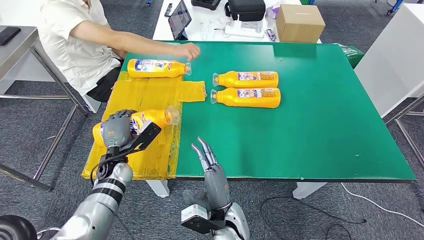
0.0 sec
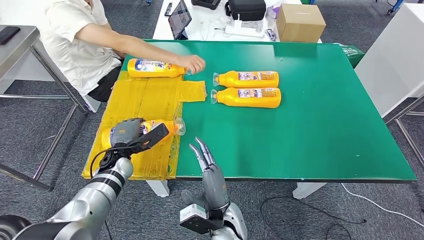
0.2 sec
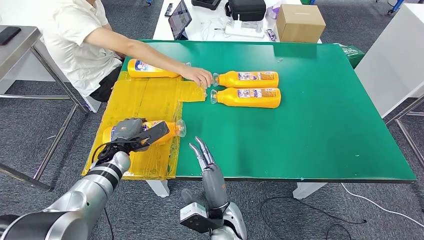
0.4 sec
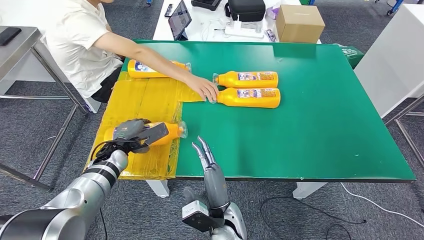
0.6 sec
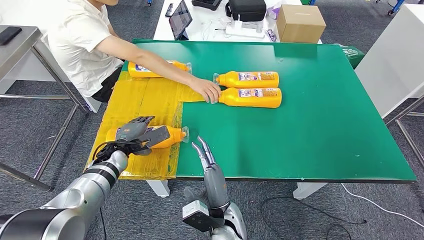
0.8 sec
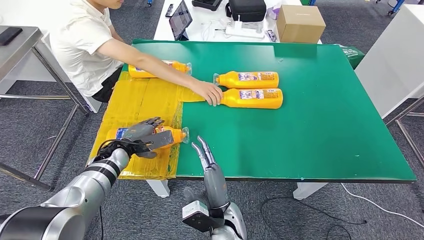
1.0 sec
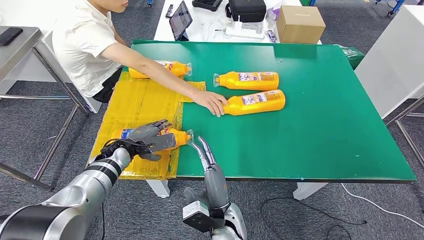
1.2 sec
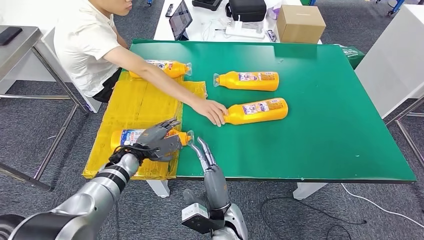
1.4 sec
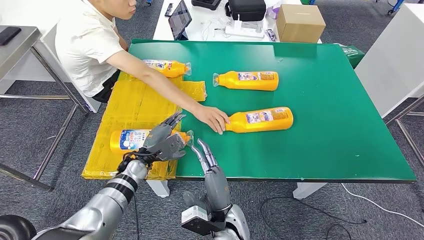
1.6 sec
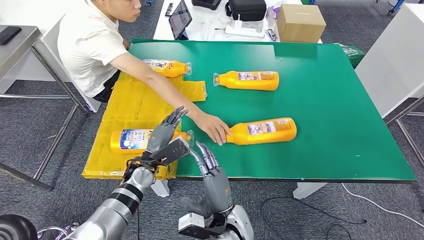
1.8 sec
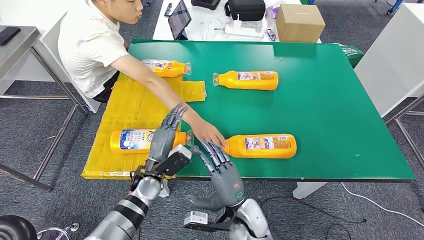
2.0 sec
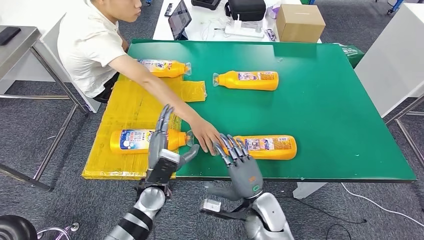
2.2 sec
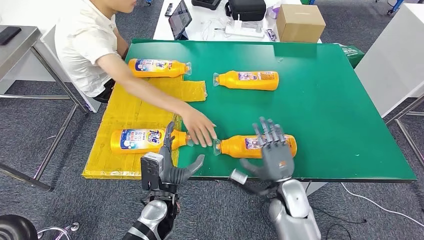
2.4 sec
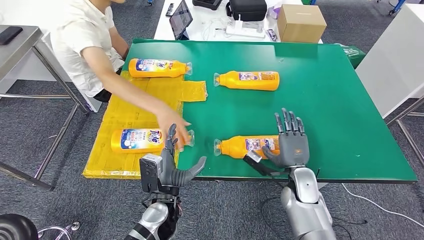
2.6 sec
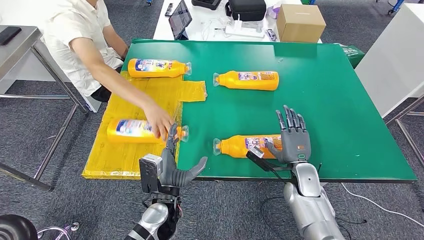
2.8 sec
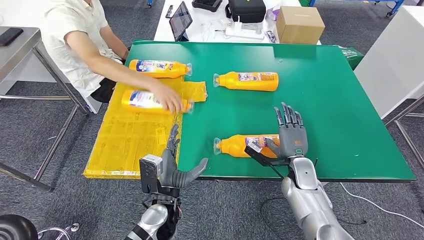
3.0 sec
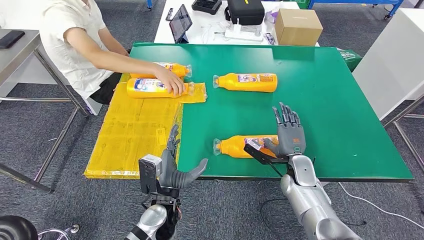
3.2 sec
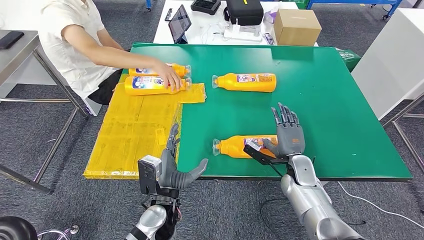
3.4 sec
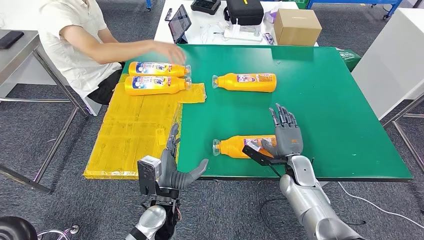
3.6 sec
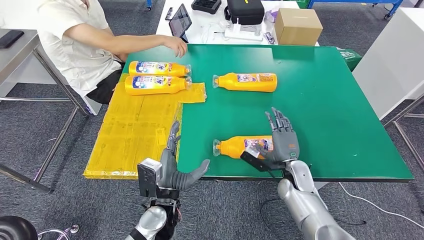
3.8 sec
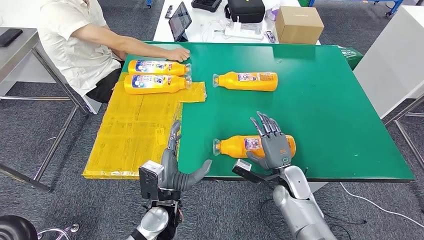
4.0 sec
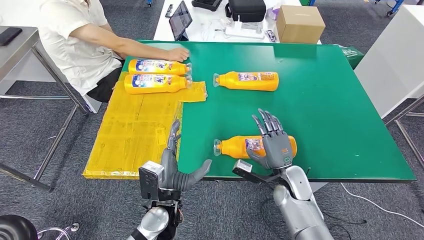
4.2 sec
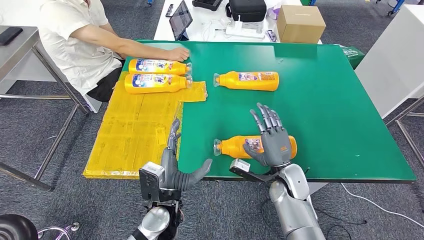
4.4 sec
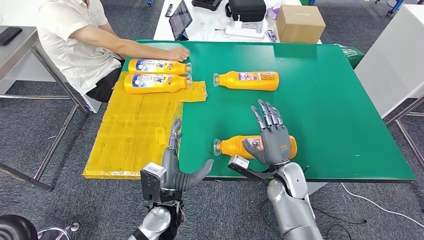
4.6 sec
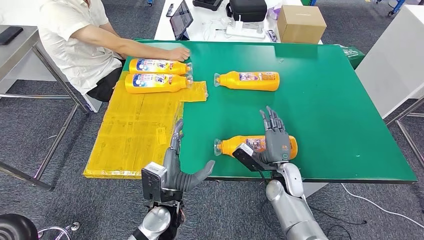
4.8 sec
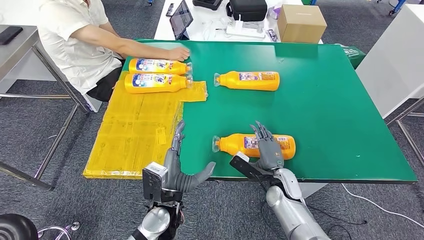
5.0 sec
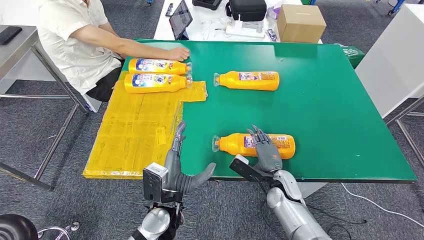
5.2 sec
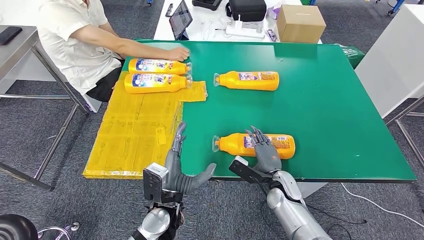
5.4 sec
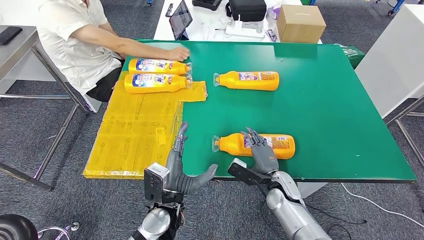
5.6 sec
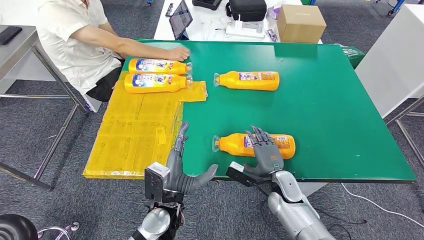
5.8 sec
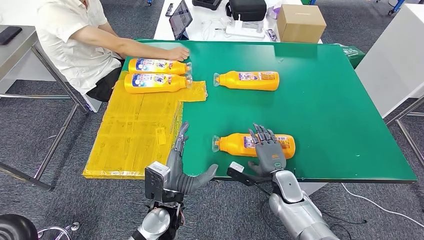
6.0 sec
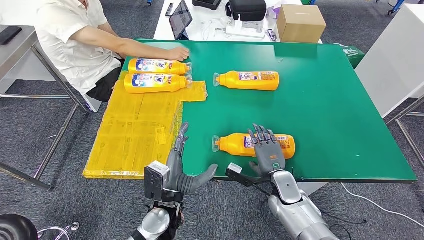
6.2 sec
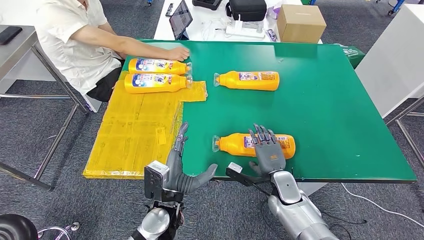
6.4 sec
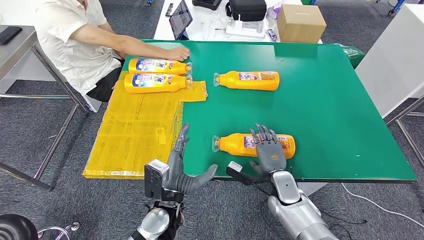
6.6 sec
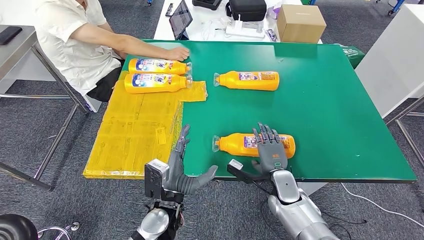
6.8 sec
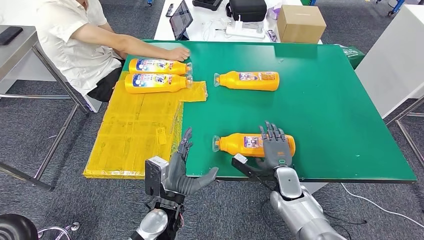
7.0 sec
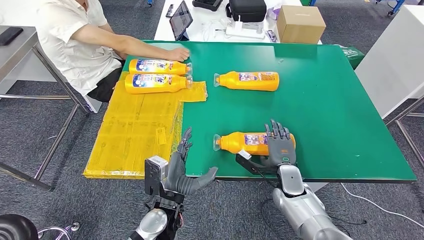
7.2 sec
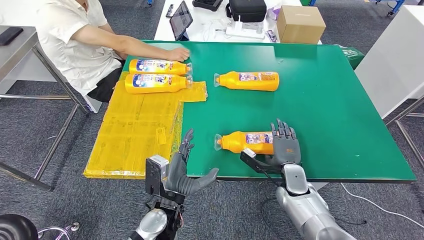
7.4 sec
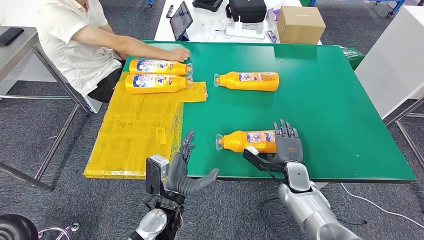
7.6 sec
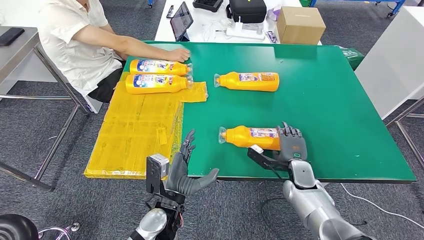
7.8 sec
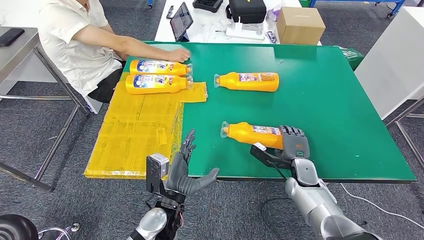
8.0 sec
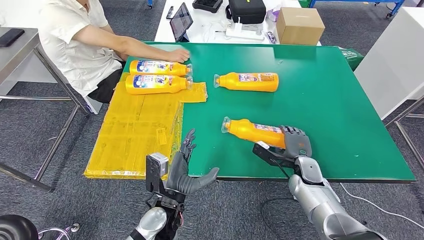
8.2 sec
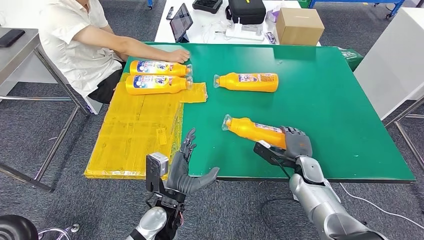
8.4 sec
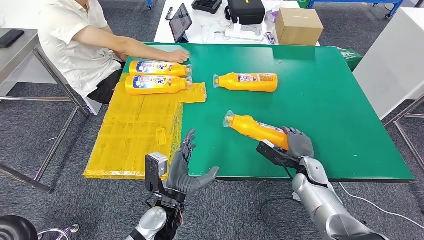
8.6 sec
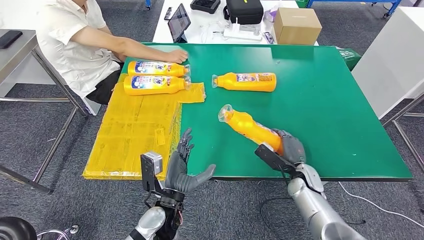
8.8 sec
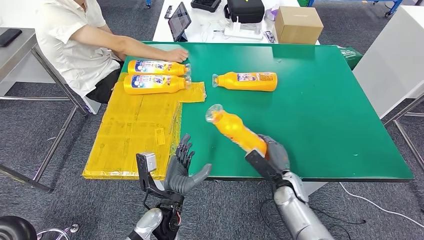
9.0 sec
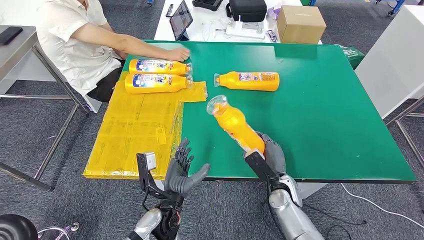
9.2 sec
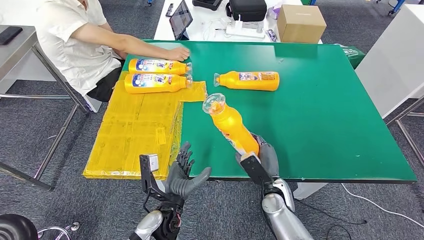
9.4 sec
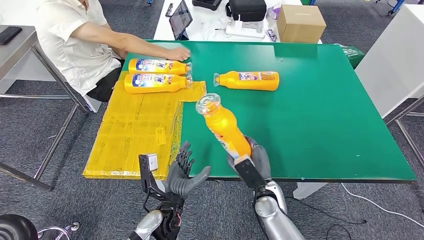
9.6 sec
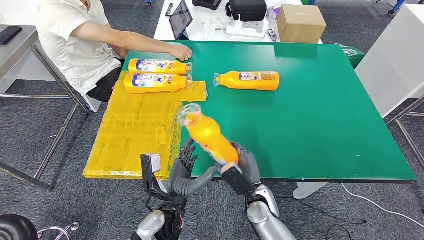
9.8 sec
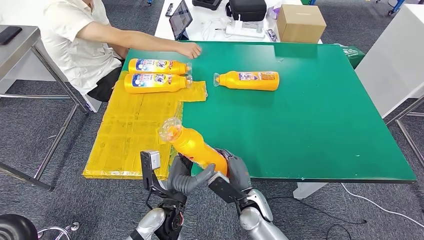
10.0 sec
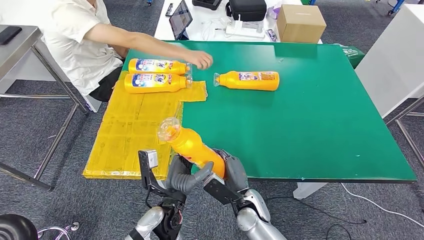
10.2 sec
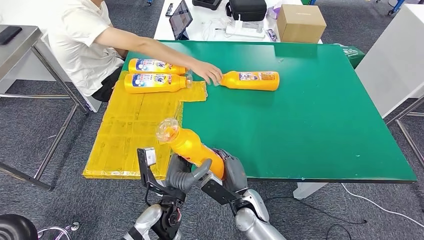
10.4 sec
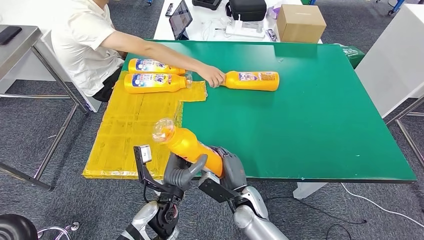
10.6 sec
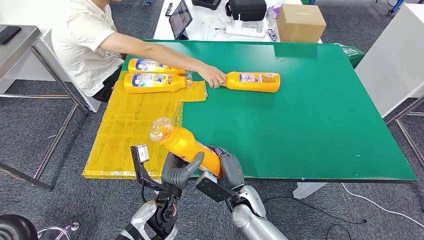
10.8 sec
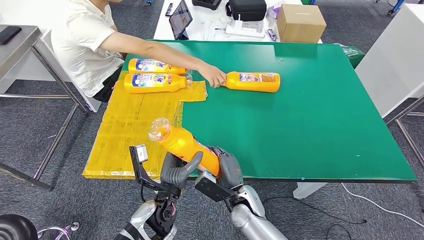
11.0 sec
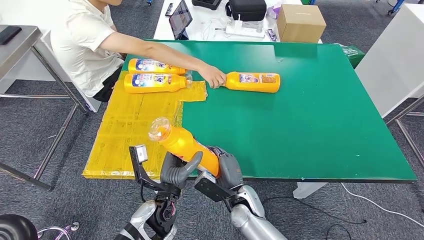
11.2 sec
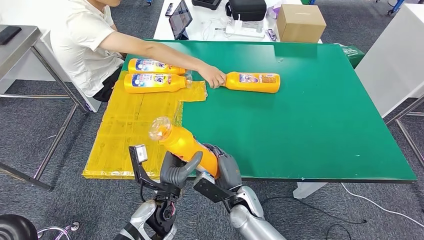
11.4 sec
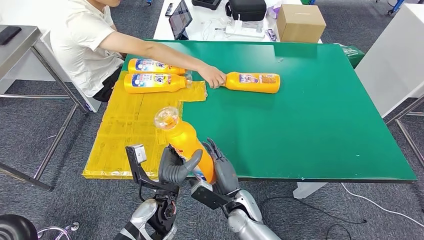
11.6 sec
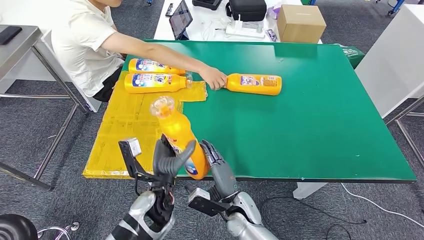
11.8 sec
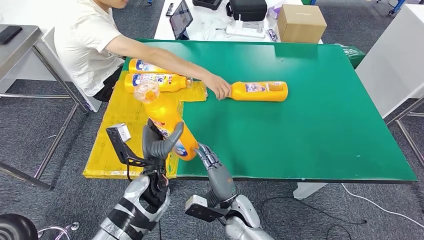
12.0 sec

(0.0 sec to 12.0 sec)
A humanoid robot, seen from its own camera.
Step, 0.0 sec - 4.4 sec: Flip the bottle to face forward.
Step, 4.6 sec - 8.6 sec: Pick up the bottle from the table.
0.0 sec - 1.6 sec: The left hand moves to the right, roughly 5 cm.
3.0 sec - 4.4 sec: The right hand moves some 5 cm.
4.4 sec - 6.0 sec: The right hand changes place by about 5 cm.
10.4 sec - 12.0 sec: The left hand heads forward, covering roughly 5 cm.

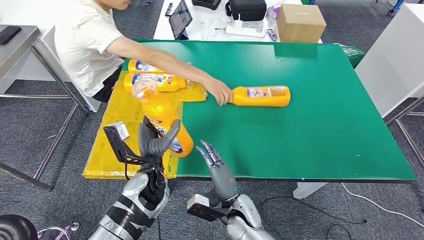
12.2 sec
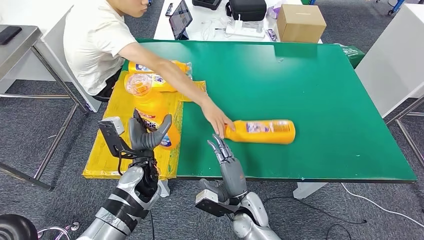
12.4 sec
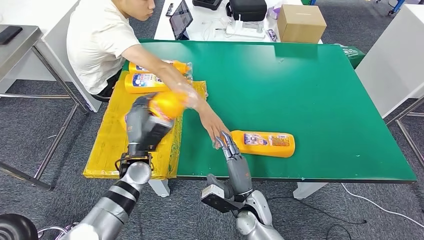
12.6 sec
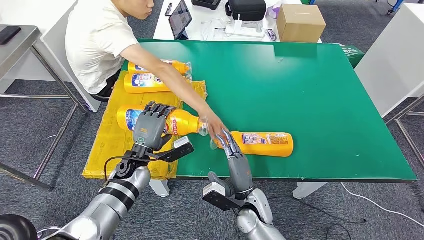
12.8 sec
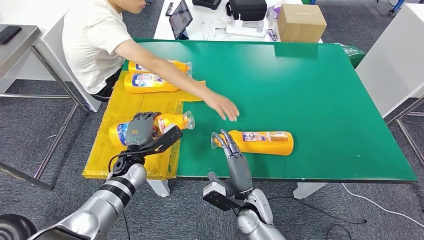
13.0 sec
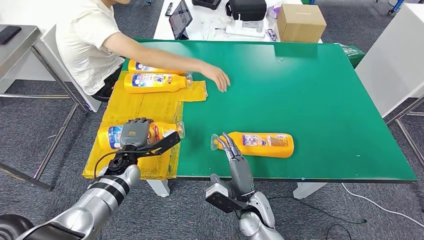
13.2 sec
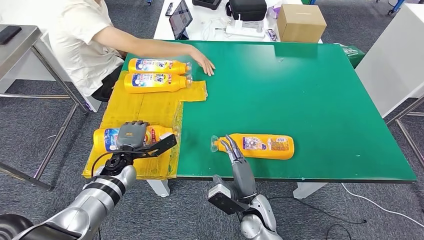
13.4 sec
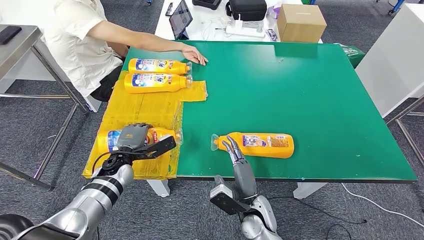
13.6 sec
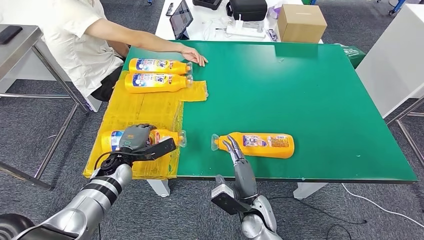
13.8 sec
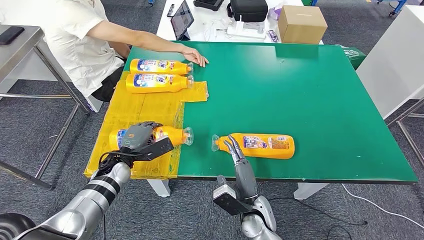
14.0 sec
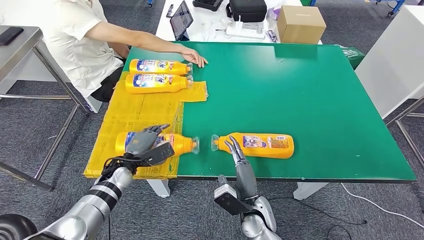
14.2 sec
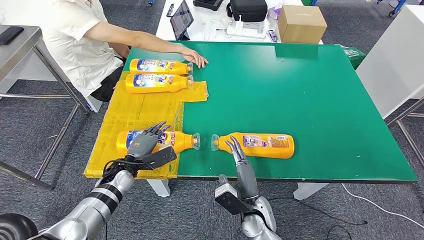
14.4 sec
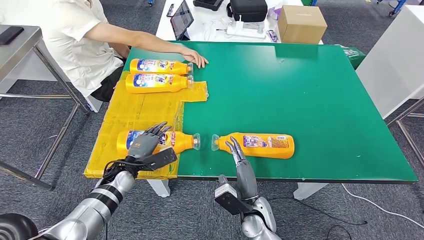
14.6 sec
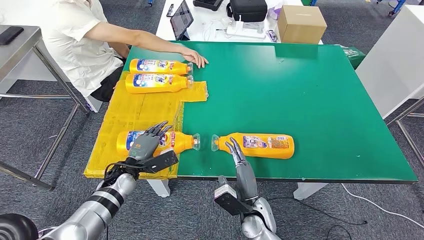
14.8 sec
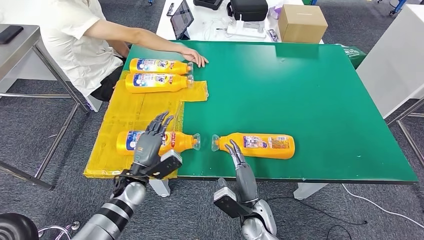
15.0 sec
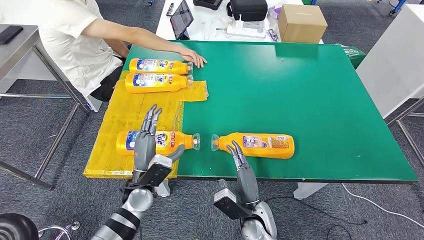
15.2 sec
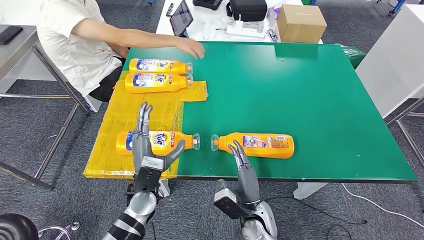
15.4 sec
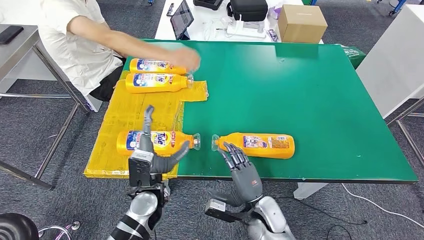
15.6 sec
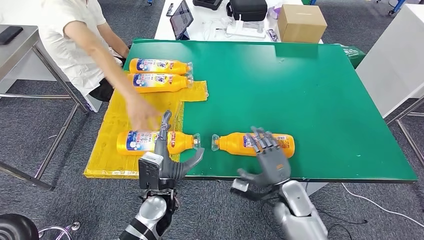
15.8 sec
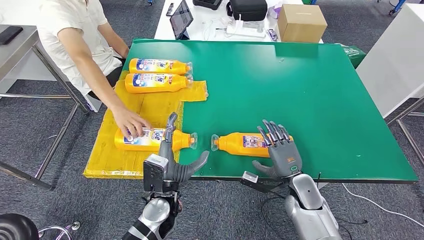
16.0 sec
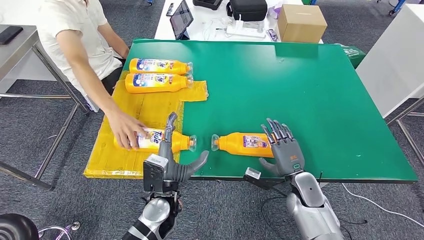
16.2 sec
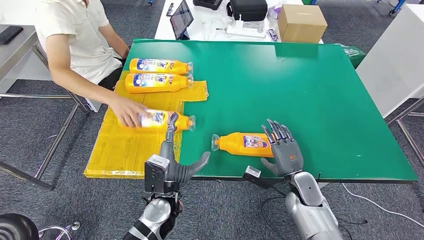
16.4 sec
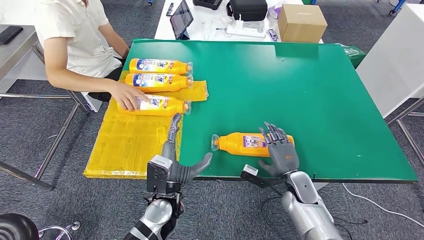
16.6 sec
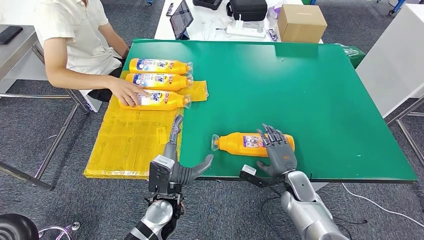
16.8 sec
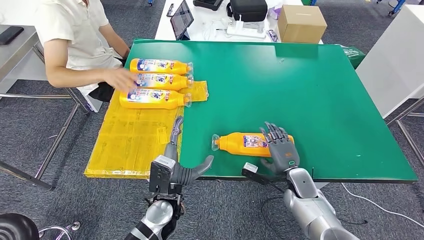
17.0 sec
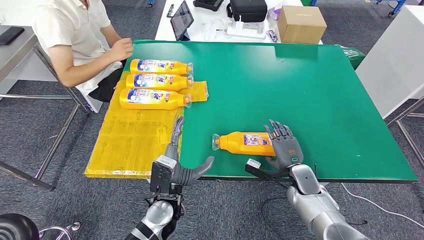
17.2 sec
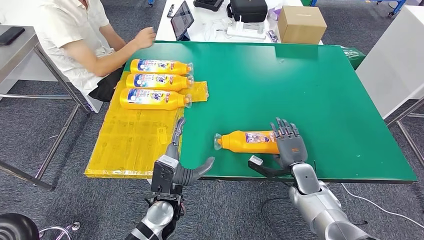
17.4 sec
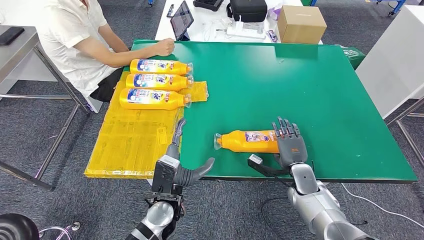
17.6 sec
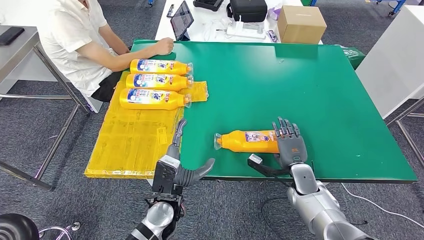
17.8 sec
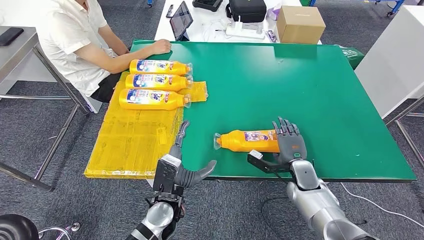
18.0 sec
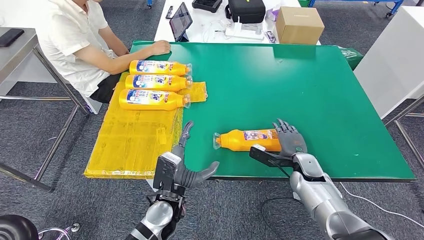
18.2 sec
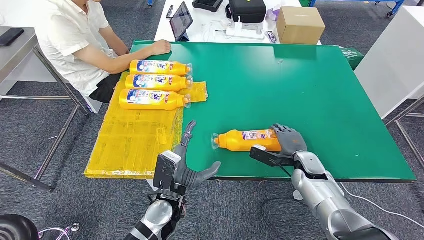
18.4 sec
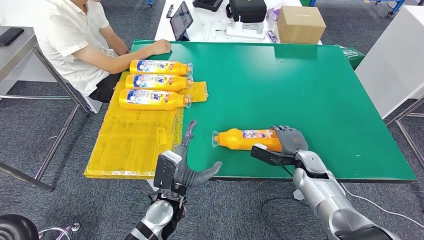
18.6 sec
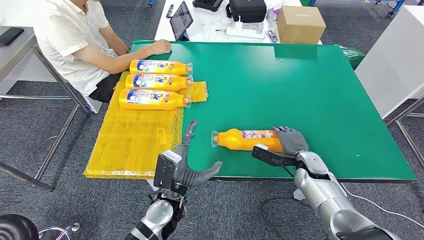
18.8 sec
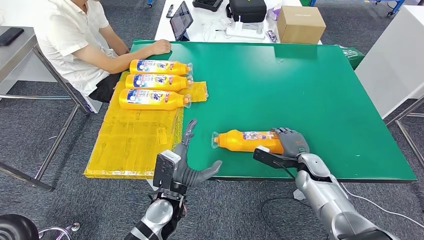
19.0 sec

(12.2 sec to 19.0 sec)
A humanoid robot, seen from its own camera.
13.6 sec - 15.0 sec: The left hand heads backward, covering approximately 5 cm.
15.0 sec - 16.2 sec: The right hand travels to the right and forward by about 15 cm. Meanwhile the left hand heads to the right and backward, covering about 10 cm.
